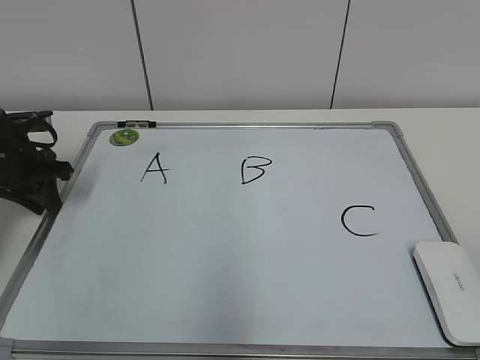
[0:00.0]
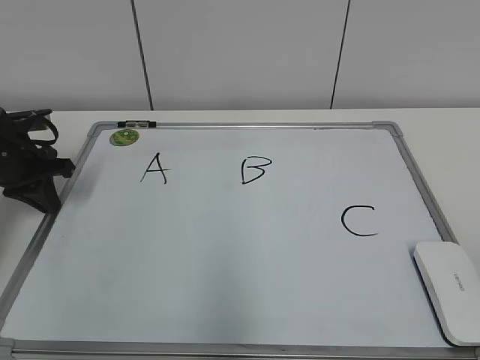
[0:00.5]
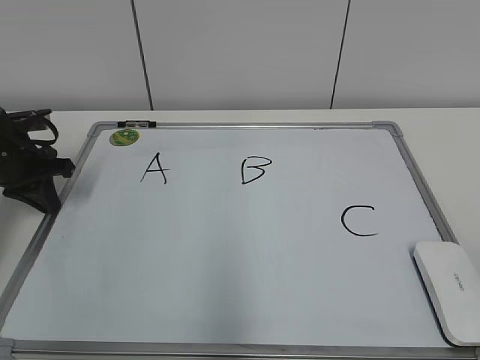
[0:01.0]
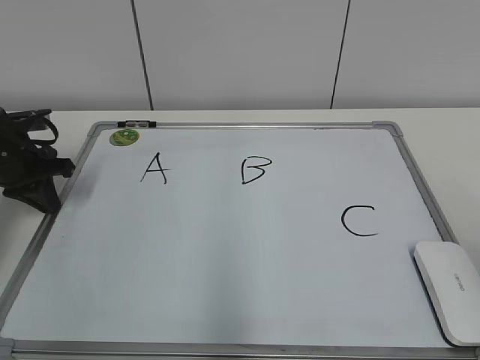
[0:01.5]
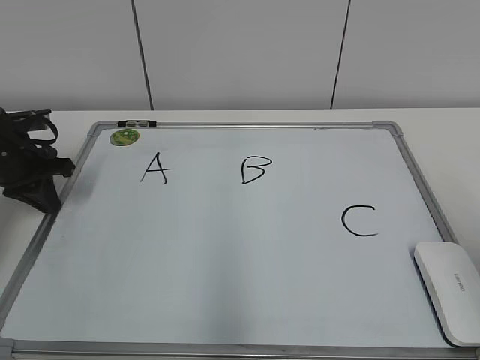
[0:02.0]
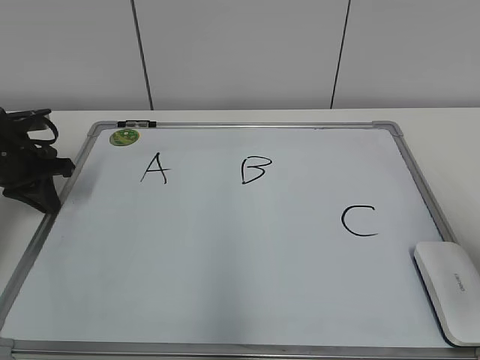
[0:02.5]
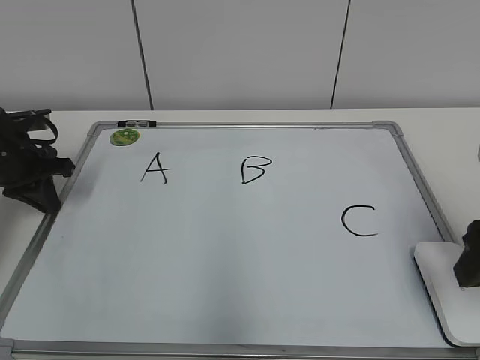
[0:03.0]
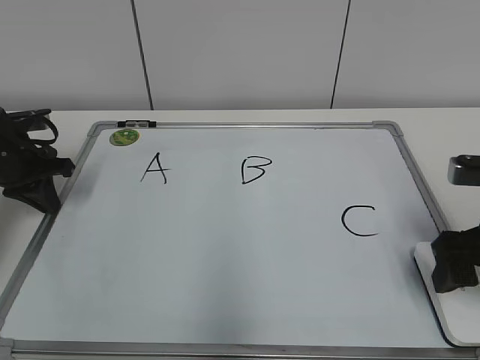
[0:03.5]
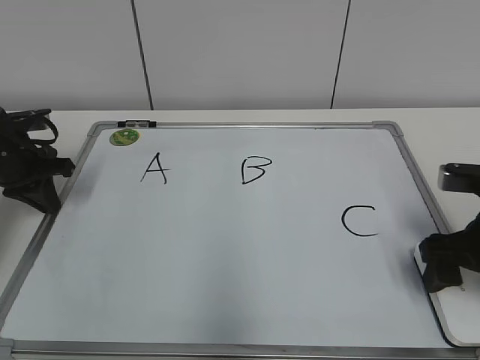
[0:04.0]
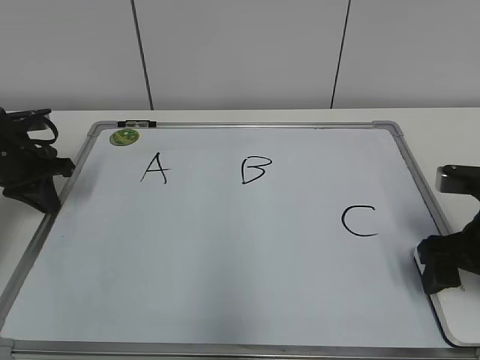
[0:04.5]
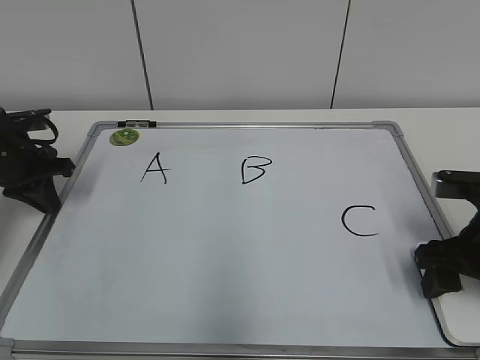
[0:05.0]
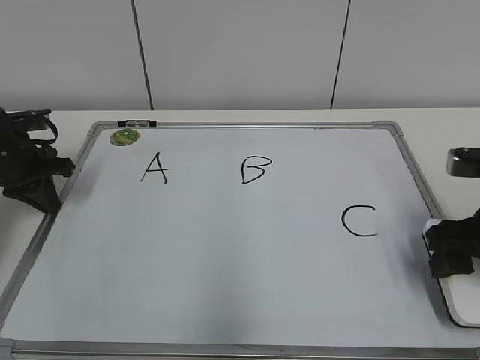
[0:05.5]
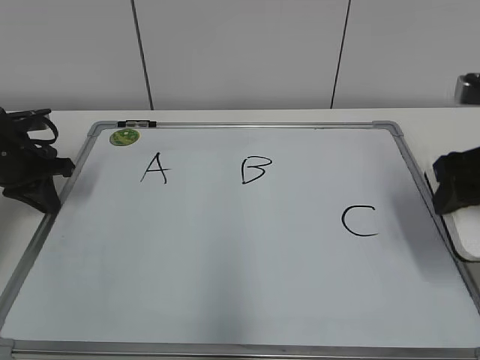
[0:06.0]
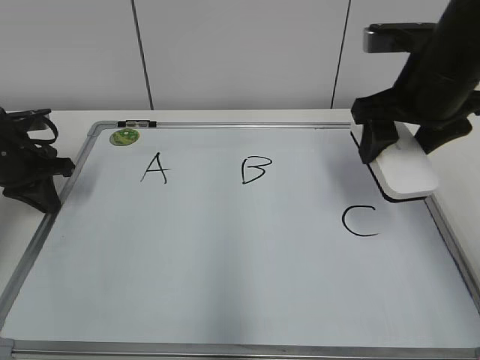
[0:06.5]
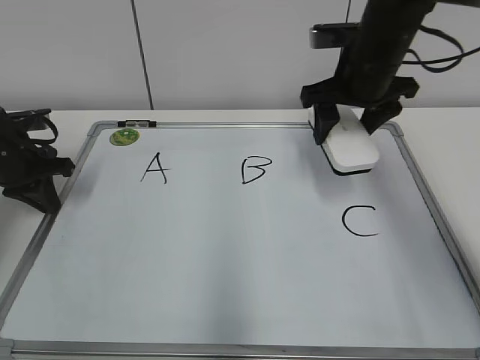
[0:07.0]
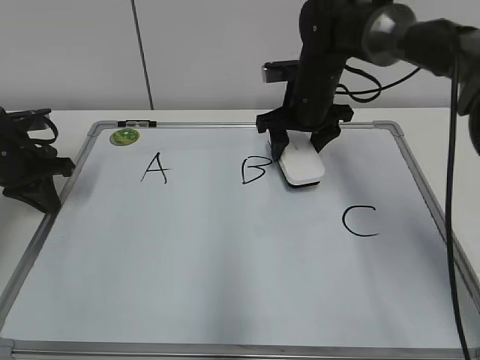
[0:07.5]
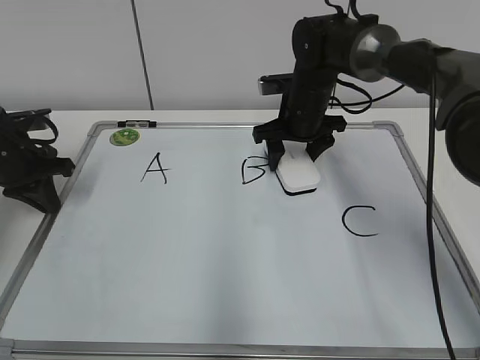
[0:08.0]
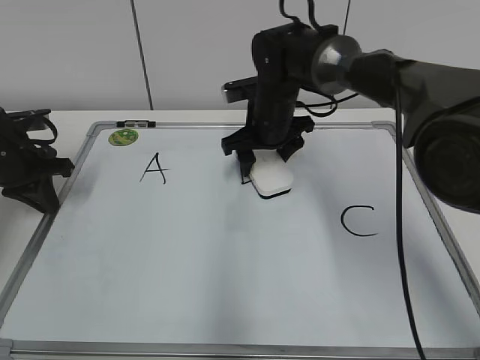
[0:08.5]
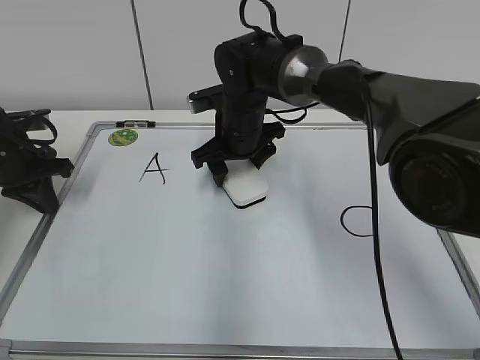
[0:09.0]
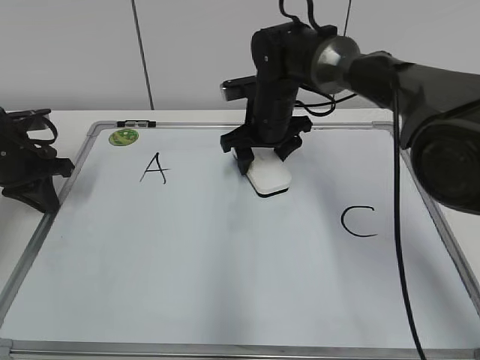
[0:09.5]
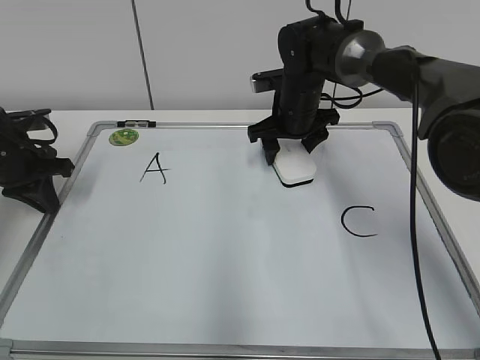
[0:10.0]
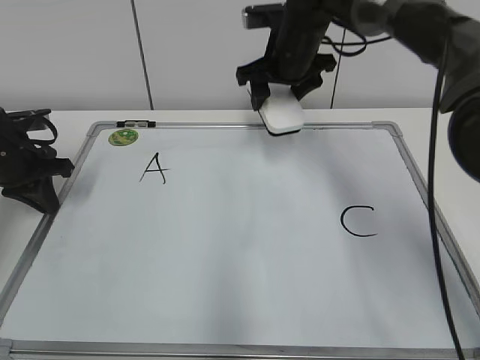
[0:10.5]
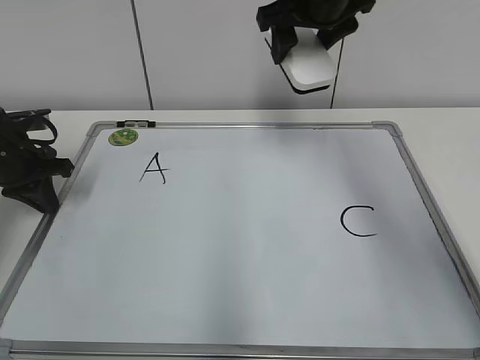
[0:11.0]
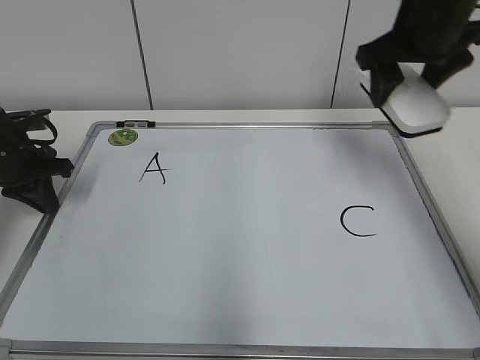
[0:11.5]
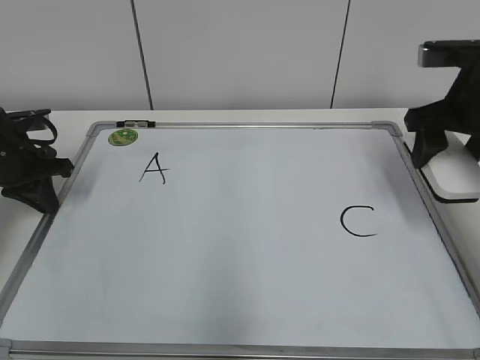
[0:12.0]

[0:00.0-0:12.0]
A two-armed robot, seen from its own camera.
Task of the whole recording: pick up the eraser on the blackboard and erase the letter "B".
Step, 0:01.0 to 0:05.0: Grab the eraser with your right hand.
Step, 0:05.5 to 0:10.0: Erase the letter B with your right hand.
0:02.0 to 0:04.0: The right gripper shifts roughly 15 cm forward and downward, and opens up.
0:04.0 to 0:06.0: The right gripper shifts some 10 cm upward, and closes its fingers.
0:06.0 to 0:08.0: The right gripper travels forward and to the left by roughly 25 cm.
0:08.0 to 0:10.0: The right gripper travels to the left and back again, roughly 10 cm each way.
0:10.0 to 0:12.0: The right gripper shifts about 25 cm to the right, backward and upward.

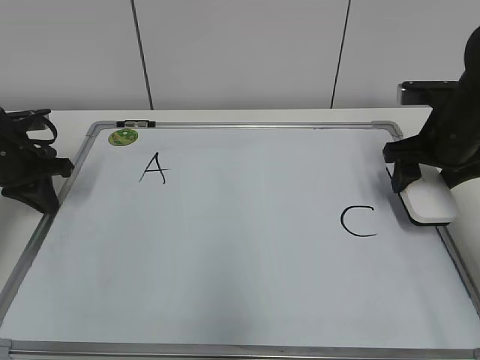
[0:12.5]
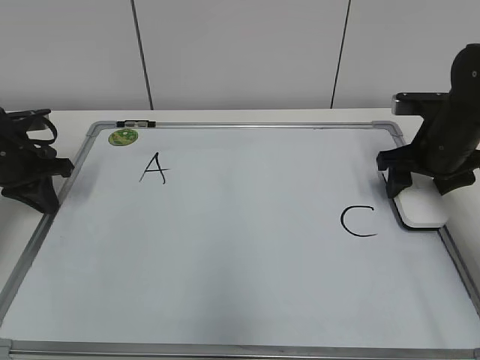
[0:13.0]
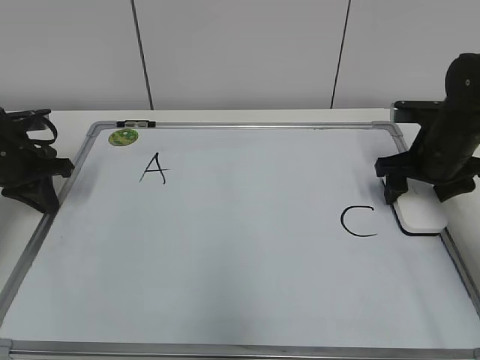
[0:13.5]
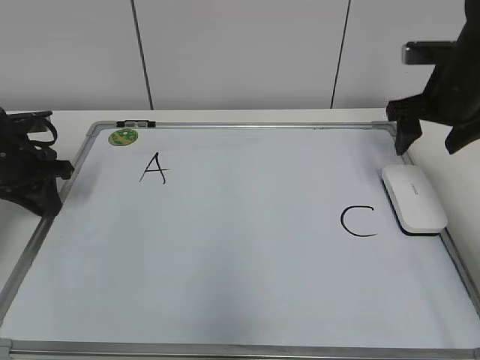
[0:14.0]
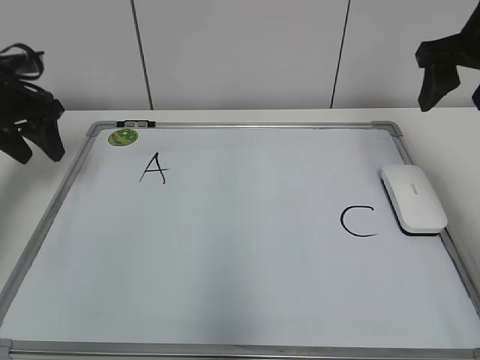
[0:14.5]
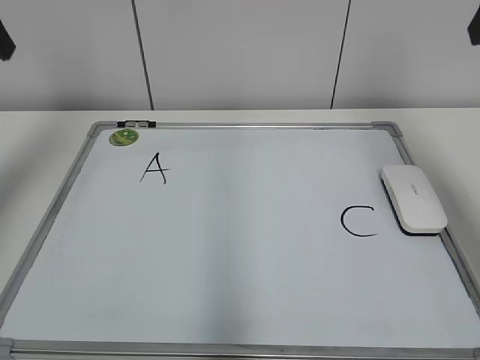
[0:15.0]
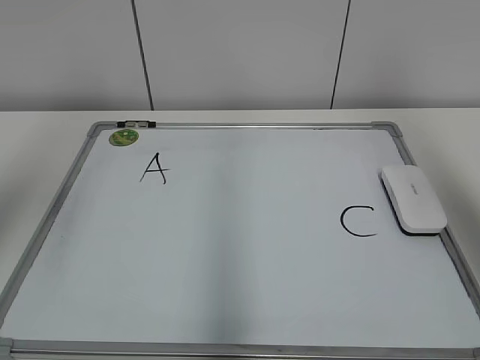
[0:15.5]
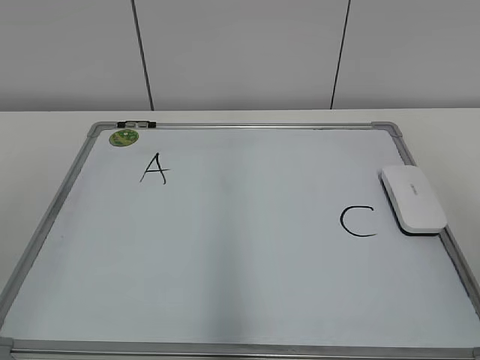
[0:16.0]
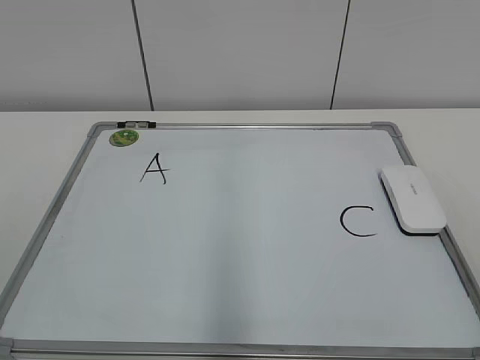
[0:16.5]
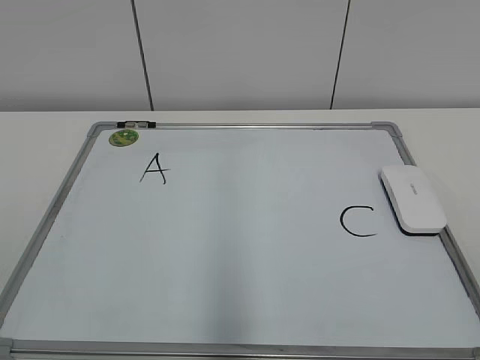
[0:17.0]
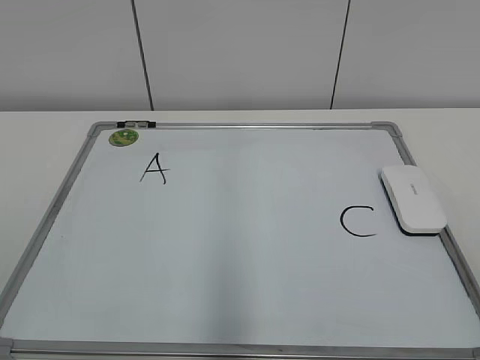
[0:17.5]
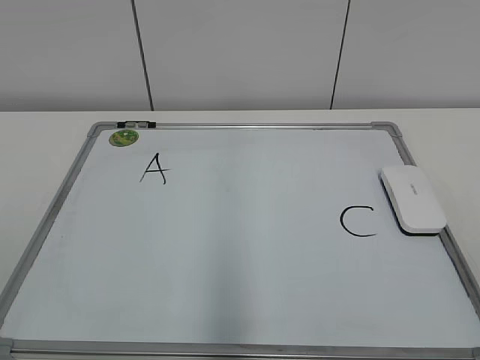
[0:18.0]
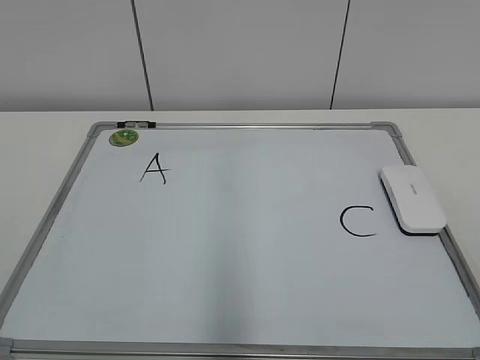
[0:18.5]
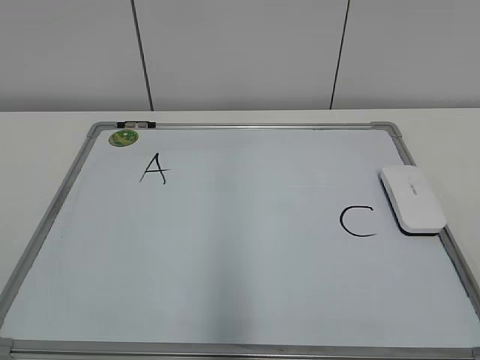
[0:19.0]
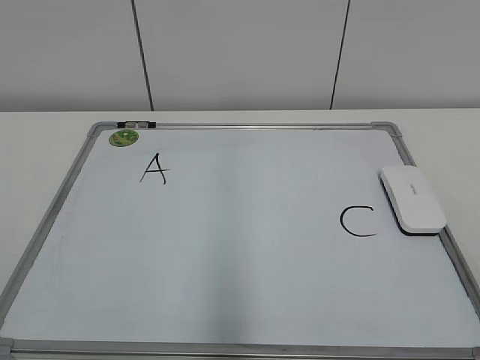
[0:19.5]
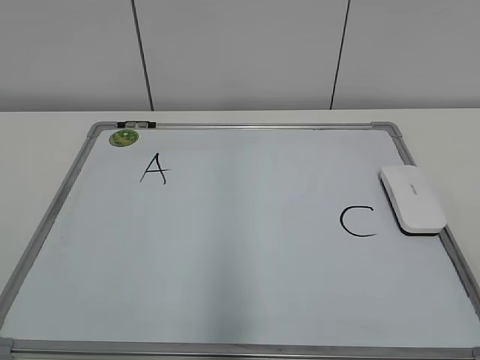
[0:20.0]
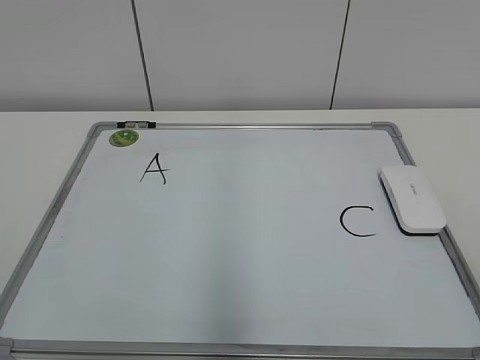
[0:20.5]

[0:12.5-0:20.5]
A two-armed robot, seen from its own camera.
Task of the whole recording: pick up the eraser on the blackboard and erase the letter "B".
0:12.5 to 0:14.5: The left gripper travels upward by roughly 10 cm, and opens up. The right gripper shifts roughly 15 cm upward, and opens up.
0:14.5 to 0:16.5: The grippers both shift backward by approximately 35 cm.

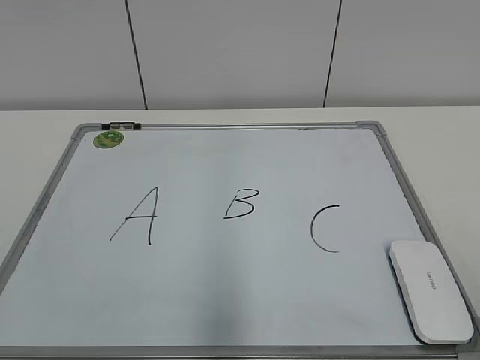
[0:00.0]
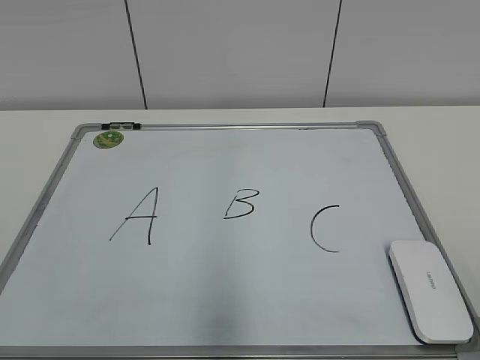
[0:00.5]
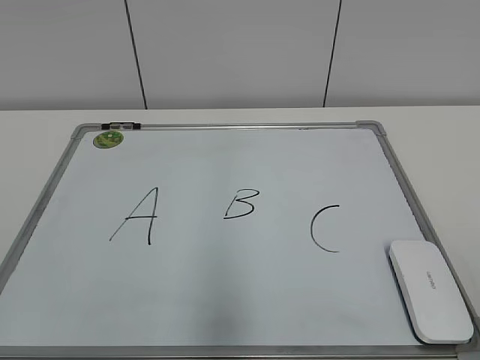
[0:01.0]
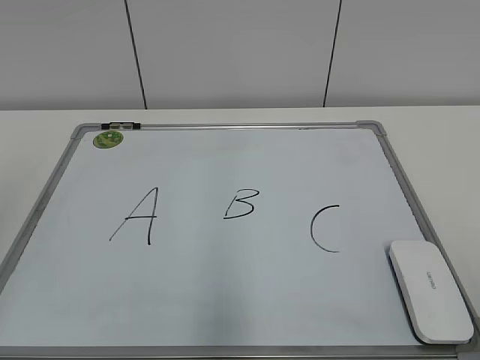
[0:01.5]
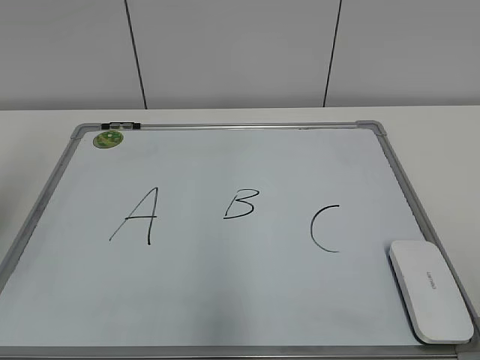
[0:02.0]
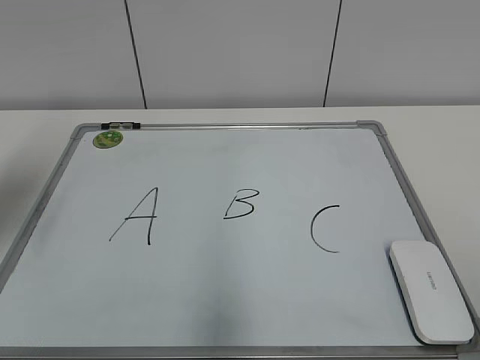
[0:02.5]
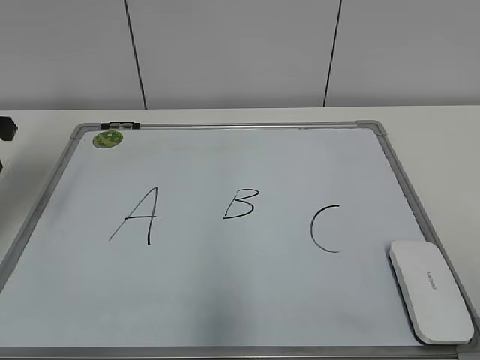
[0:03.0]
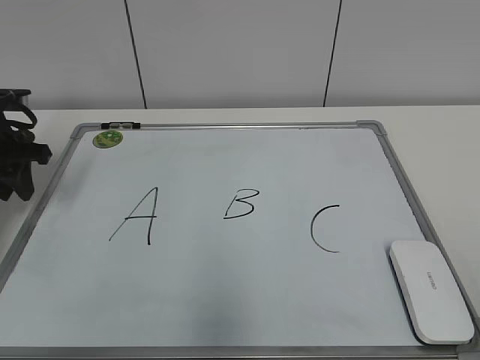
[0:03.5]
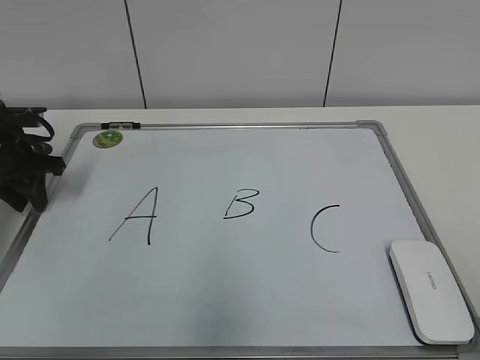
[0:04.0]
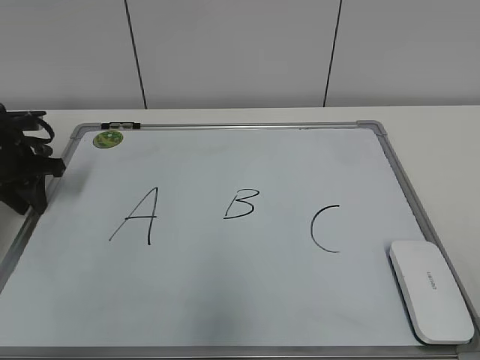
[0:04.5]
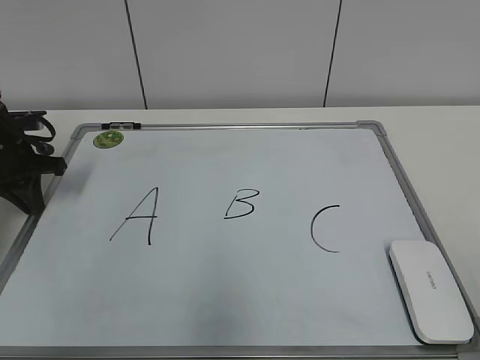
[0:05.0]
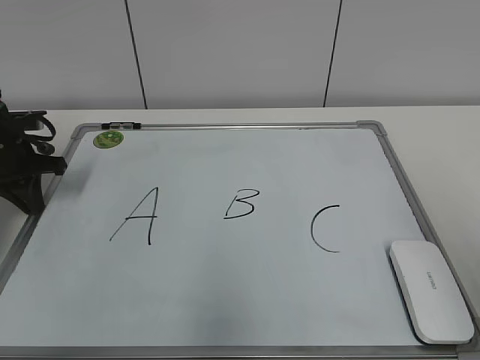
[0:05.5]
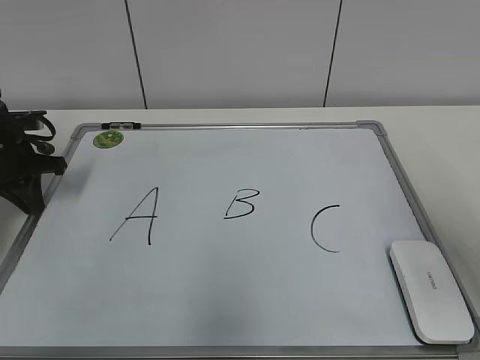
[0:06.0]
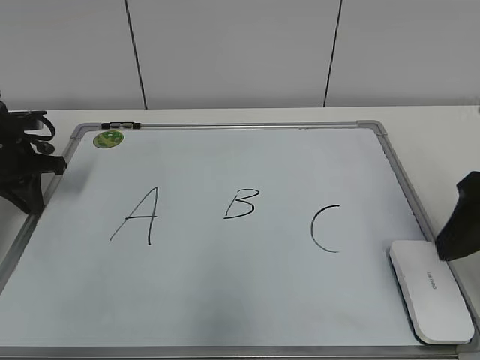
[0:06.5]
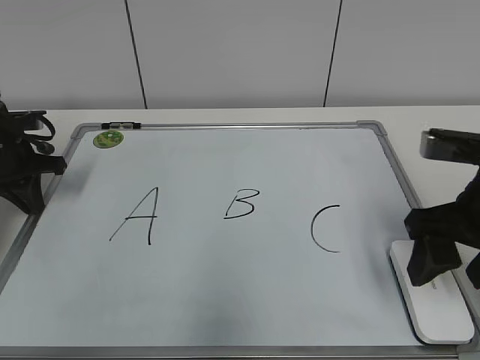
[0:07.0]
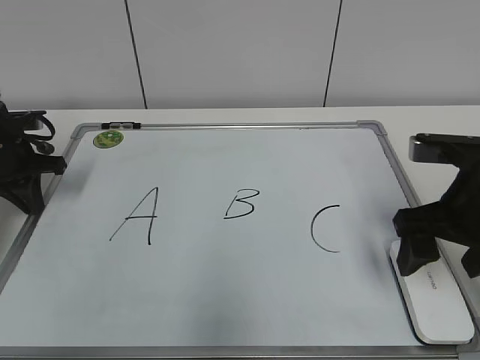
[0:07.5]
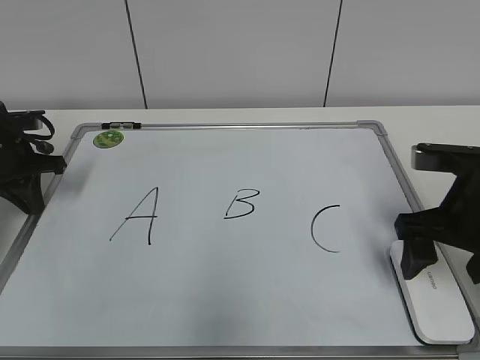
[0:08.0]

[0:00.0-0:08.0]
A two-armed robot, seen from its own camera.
Task of the whole recording: pick up the eraser on the blackboard and erase the letter "B".
Step, 0:00.0 to 0:04.5: Hold the drawing board steady with your left hand.
0:02.0 to 0:04.0: The left gripper travels forward and downward by some 30 cm.
0:04.0 to 0:06.0: The right gripper travels forward by some 20 cm. Meanwhile the left gripper closes up.
0:06.0 to 0:08.0: The right gripper shifts some 15 cm downward and forward, and opens its fingers.
